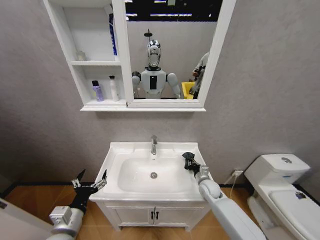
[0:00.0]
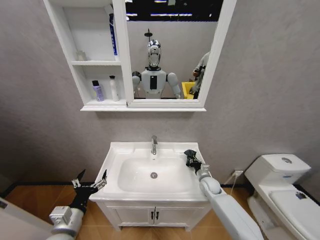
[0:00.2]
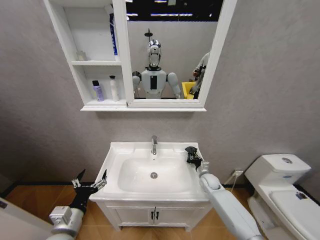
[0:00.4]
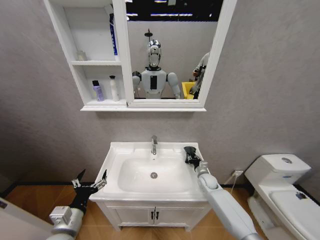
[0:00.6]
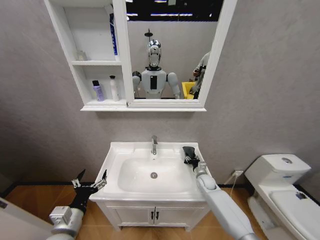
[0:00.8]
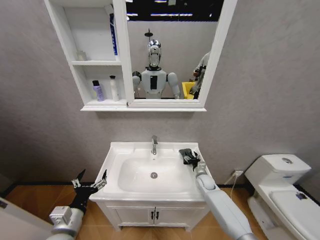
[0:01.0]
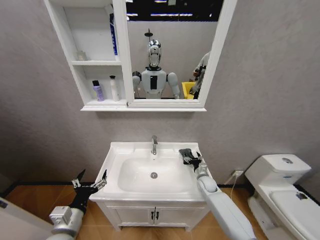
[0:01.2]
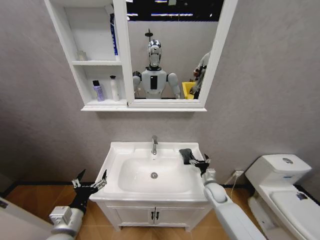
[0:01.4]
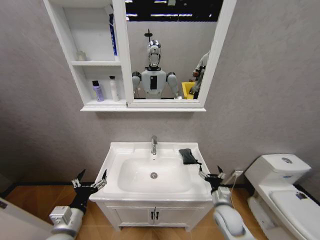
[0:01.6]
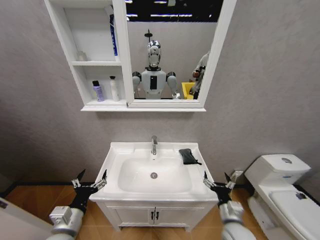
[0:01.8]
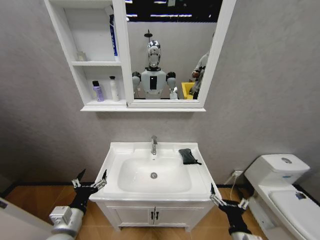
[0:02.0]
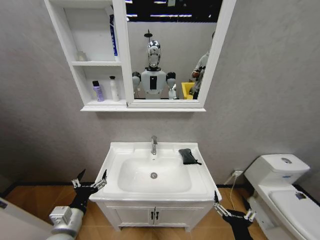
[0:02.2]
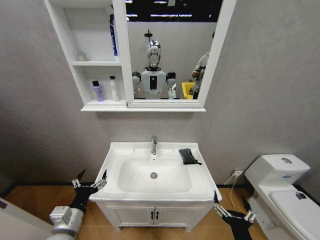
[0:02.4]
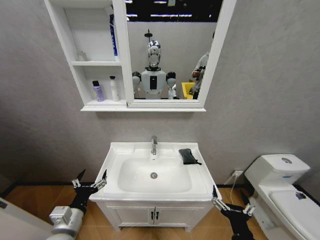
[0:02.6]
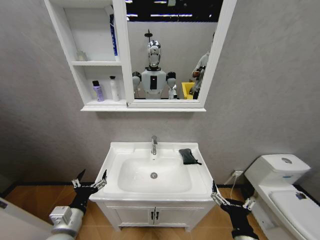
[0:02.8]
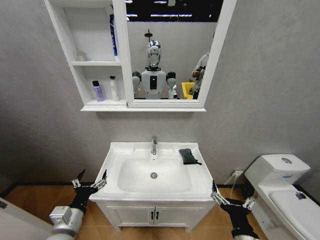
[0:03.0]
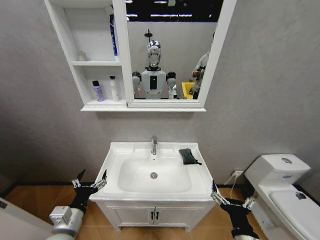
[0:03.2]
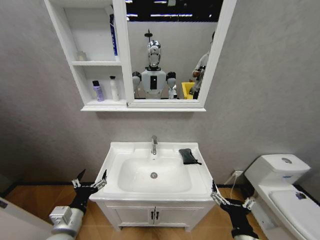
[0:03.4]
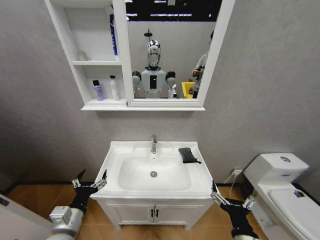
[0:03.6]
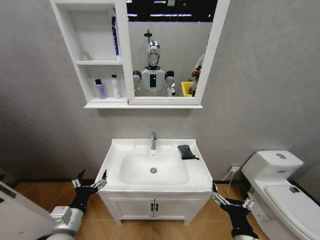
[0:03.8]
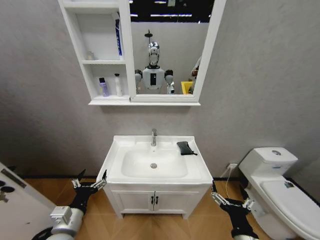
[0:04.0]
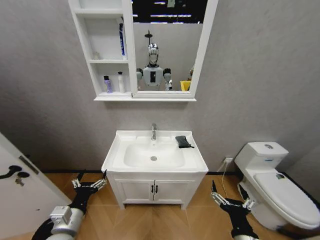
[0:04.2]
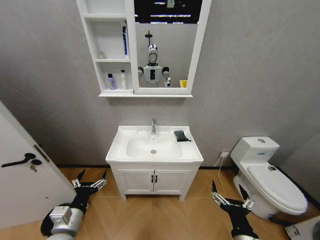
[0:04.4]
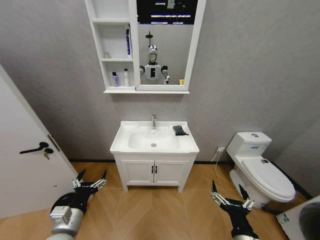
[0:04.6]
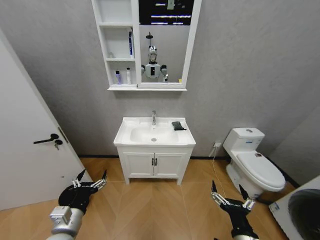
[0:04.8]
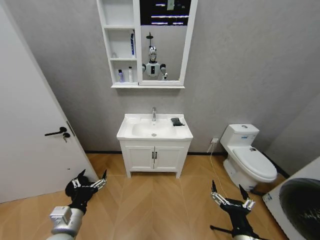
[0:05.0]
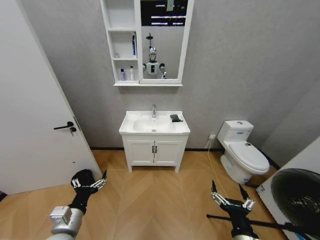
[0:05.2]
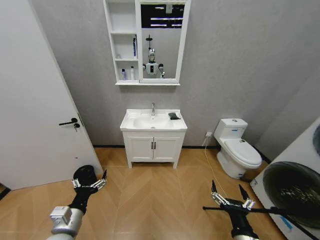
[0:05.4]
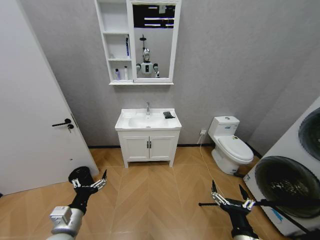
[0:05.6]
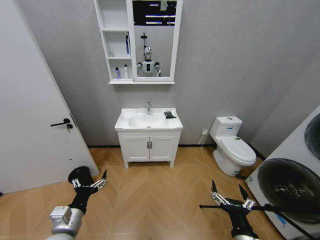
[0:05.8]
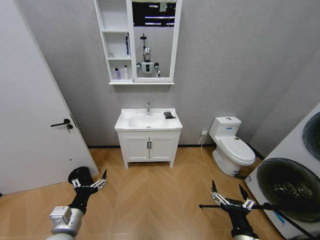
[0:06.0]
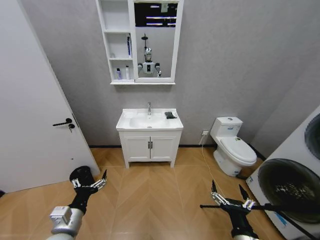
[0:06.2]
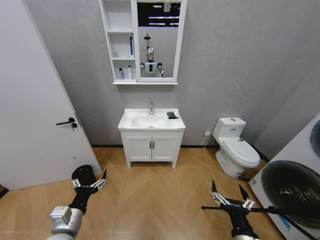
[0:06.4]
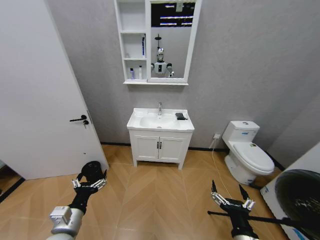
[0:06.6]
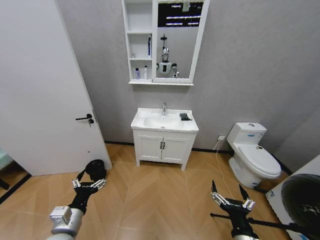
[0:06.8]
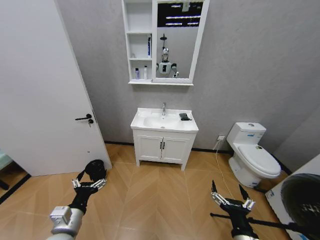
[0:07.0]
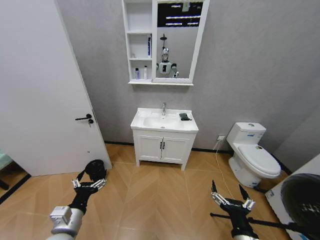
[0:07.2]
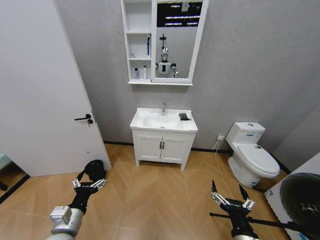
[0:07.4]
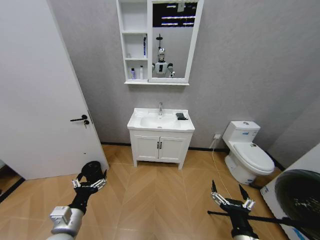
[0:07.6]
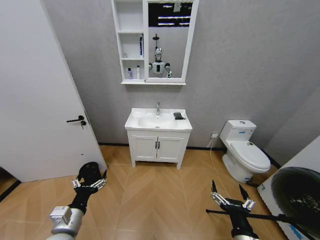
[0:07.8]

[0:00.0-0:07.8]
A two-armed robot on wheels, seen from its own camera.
Task of the whole recording: Move facial cleanser and shampoo from washbasin to cabinet, then wipe washbasin with towel.
0:00.0 to 0:01.6: The right gripper shifts roughly 10 cm backward, and opens.
0:01.6 to 0:03.2: The right gripper shifts approximately 20 cm backward and upward.
